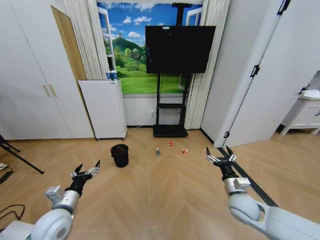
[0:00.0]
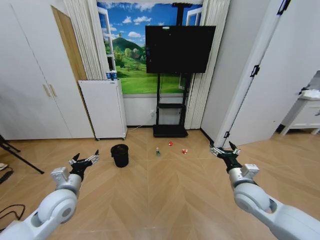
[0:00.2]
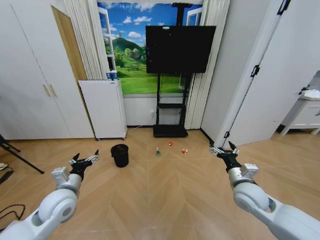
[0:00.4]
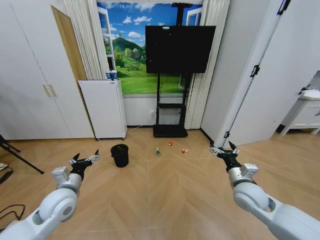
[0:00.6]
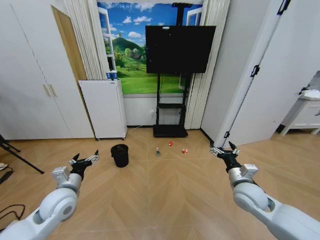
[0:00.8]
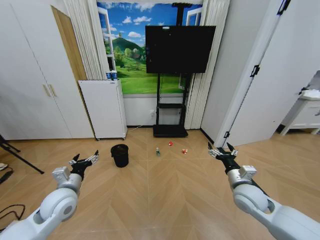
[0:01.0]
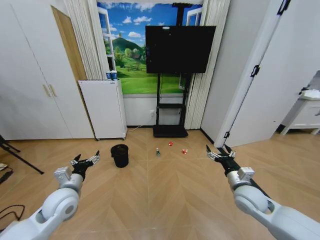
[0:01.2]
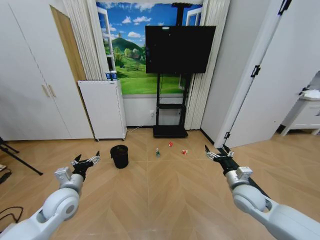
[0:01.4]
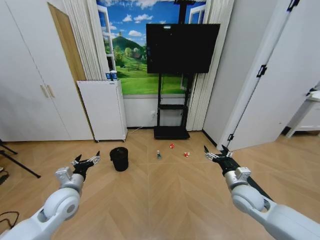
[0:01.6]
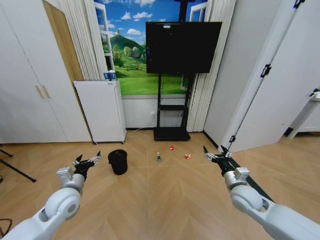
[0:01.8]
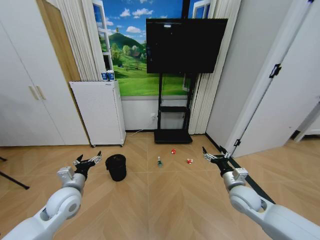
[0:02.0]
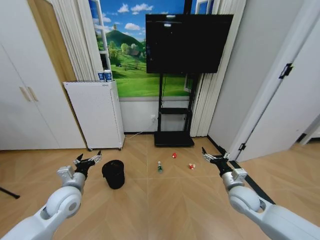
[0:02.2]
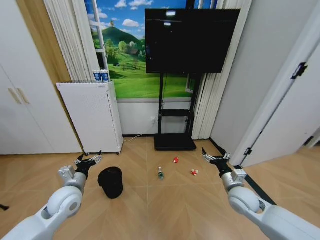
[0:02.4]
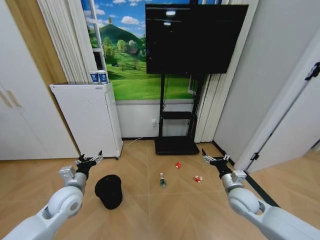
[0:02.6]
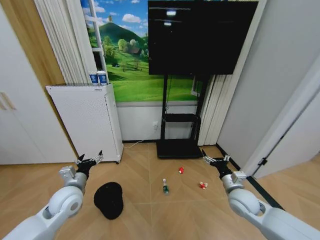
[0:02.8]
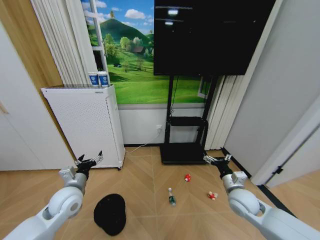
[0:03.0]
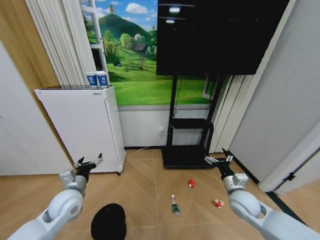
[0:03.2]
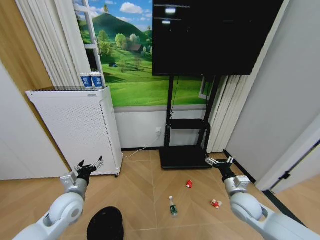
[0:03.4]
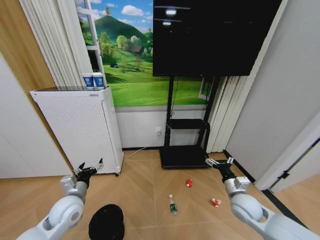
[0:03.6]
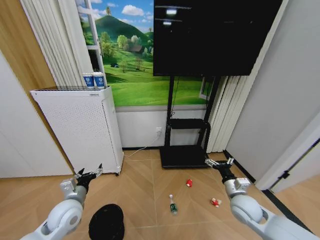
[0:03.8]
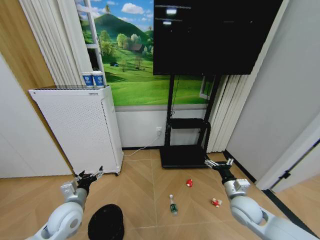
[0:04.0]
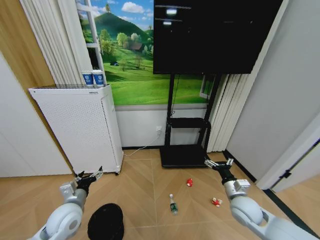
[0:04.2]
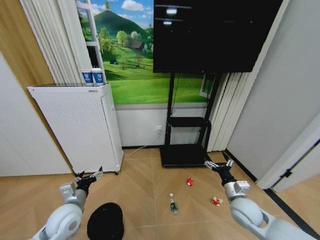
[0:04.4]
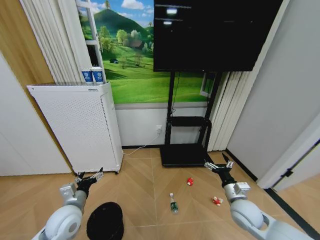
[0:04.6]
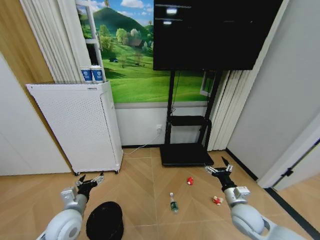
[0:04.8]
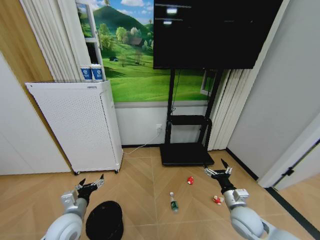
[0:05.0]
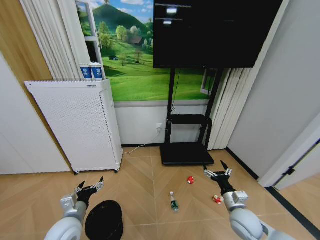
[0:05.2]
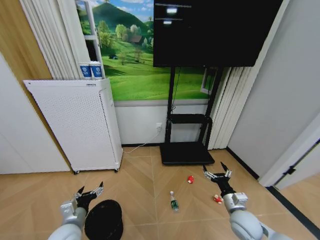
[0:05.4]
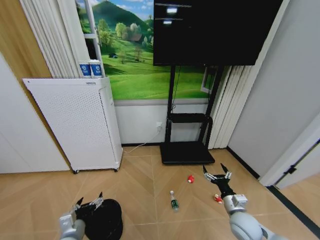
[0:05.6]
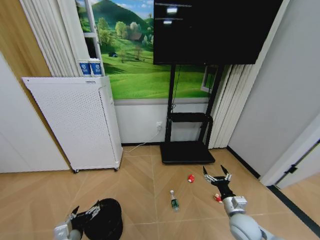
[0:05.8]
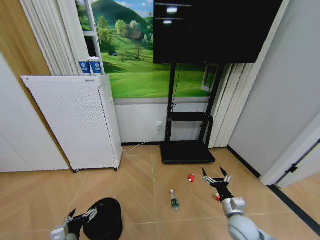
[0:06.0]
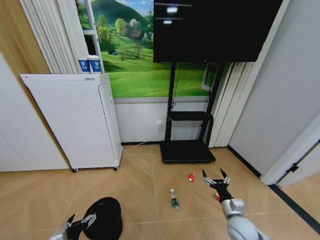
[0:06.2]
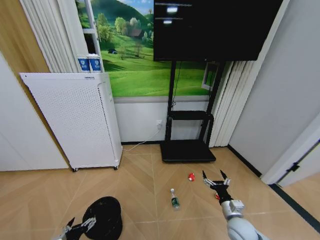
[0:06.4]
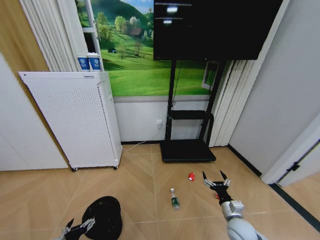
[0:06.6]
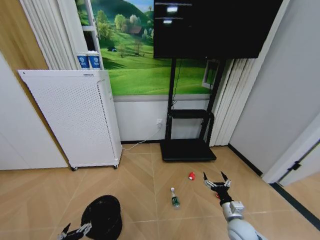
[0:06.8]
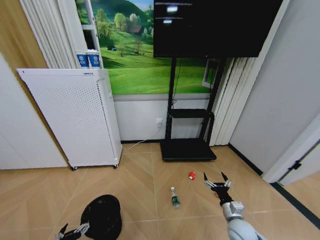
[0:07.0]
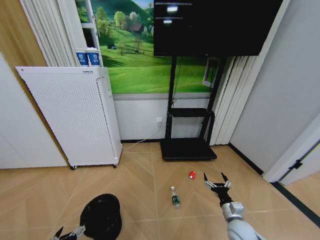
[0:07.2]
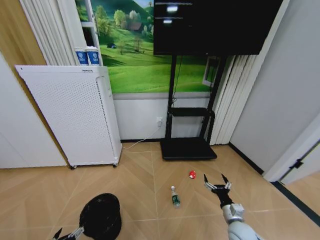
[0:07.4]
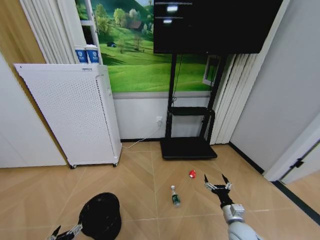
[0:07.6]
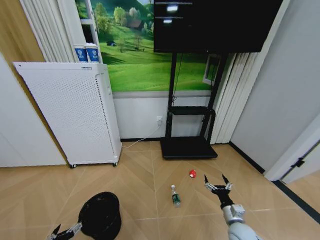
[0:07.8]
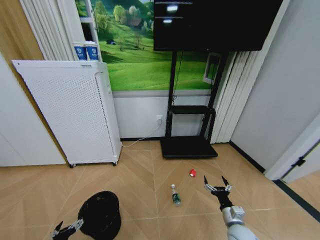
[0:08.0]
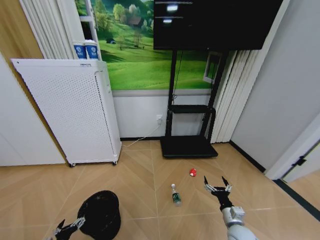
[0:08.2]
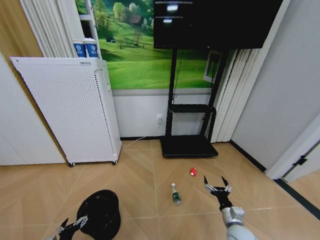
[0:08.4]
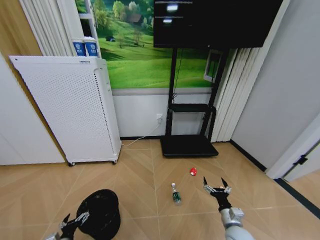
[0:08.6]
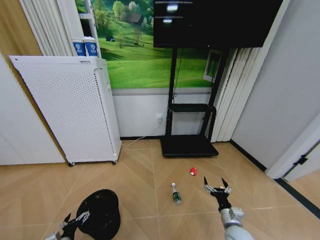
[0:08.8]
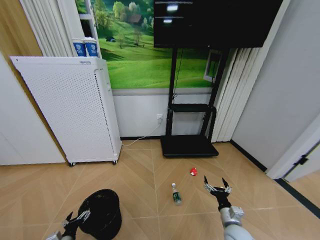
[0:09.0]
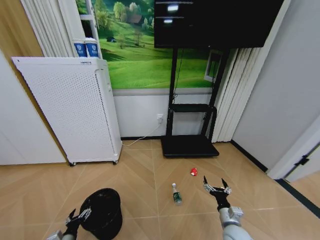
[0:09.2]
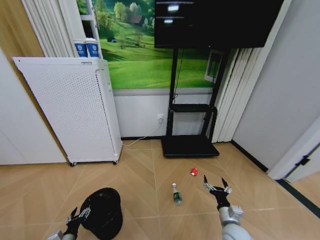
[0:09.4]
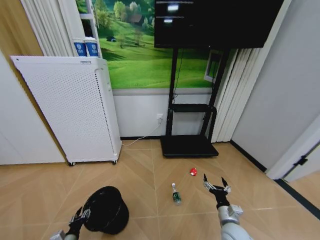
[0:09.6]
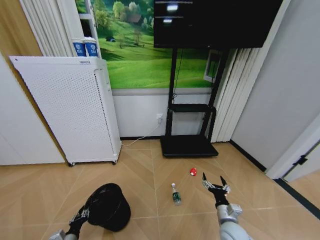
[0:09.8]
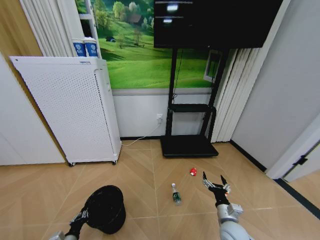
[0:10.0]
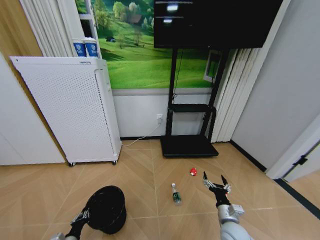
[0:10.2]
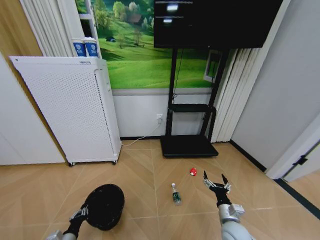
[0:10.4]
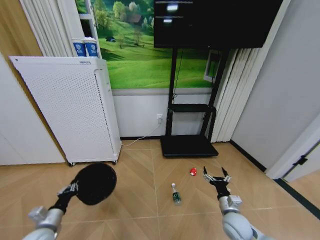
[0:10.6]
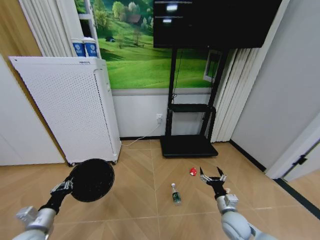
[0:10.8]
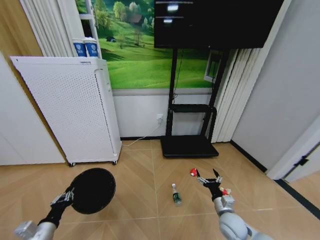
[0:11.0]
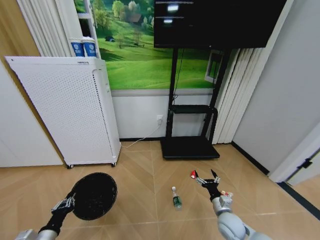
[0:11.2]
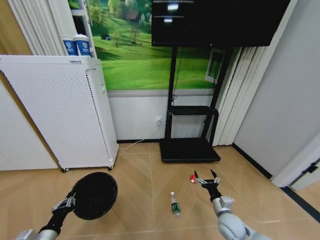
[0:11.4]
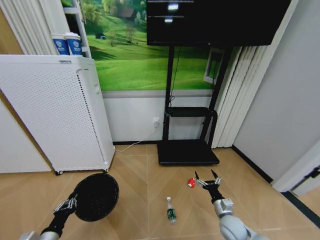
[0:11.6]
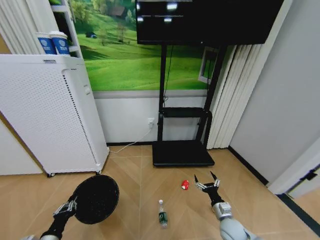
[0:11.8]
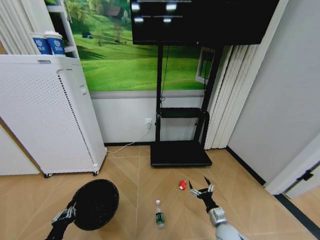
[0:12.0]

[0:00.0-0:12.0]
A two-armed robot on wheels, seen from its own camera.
Task of the whole recording: Pick up the trash bin and place the garbage on the floor into it.
0:03.0 to 0:04.4: The left gripper changes place by roughly 5 cm.
0:04.4 to 0:06.0: The right gripper is displaced downward by about 5 cm, while the left gripper goes about 15 cm backward and downward.
0:06.0 to 0:07.6: The left gripper travels downward and to the left by approximately 10 cm.
0:07.6 to 0:09.0: The left gripper shifts approximately 5 cm forward.
0:09.0 to 0:10.4: The left gripper closes up.
0:10.4 to 0:12.0: The right gripper heads downward, covering some 5 cm. Meanwhile the left gripper is displaced upward by some 10 cm.

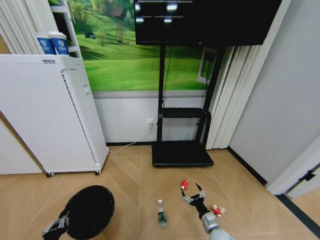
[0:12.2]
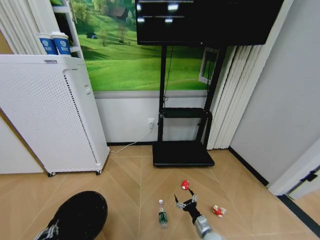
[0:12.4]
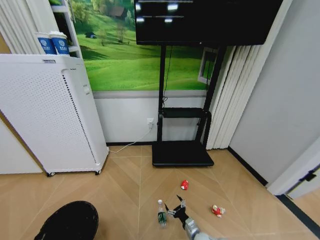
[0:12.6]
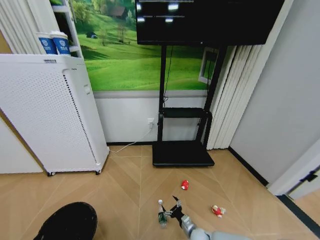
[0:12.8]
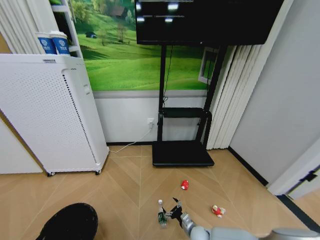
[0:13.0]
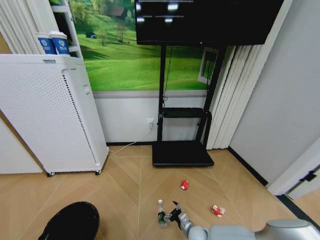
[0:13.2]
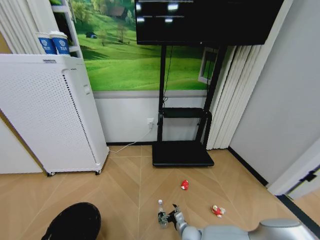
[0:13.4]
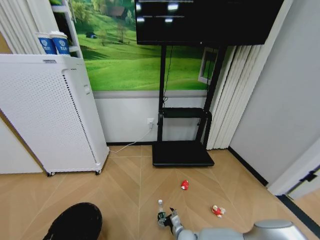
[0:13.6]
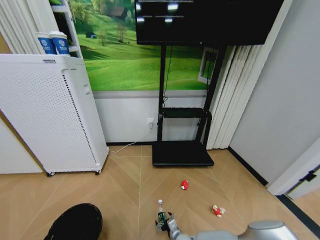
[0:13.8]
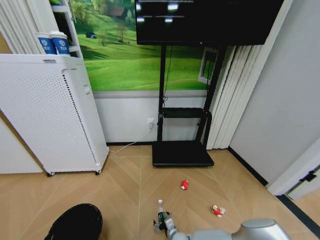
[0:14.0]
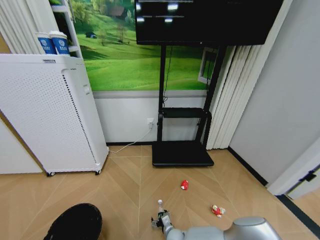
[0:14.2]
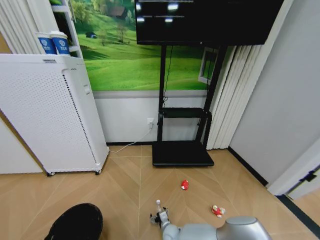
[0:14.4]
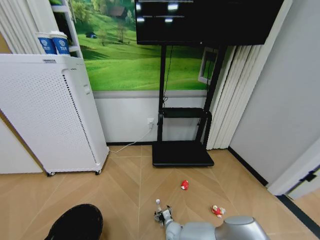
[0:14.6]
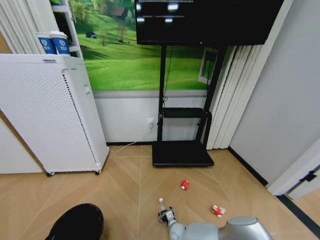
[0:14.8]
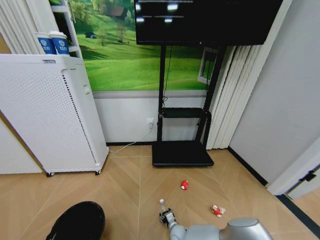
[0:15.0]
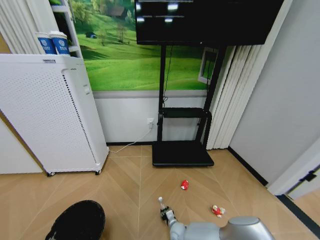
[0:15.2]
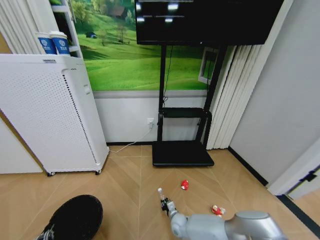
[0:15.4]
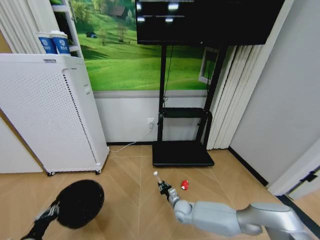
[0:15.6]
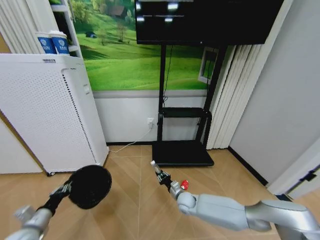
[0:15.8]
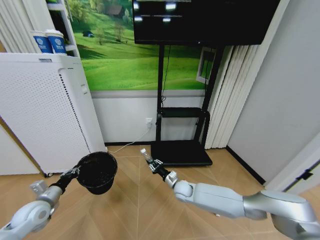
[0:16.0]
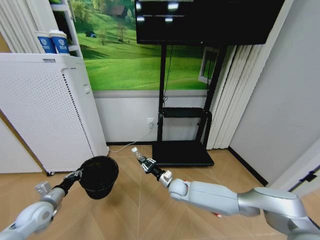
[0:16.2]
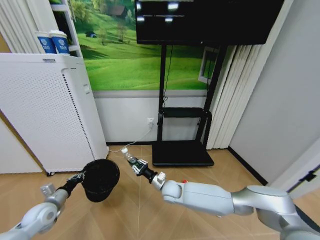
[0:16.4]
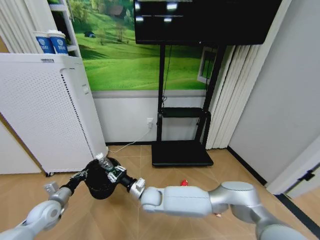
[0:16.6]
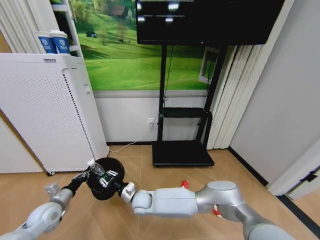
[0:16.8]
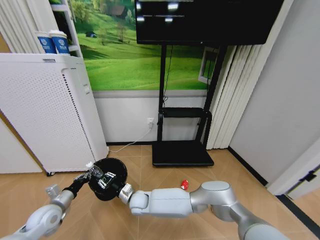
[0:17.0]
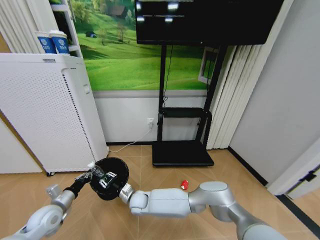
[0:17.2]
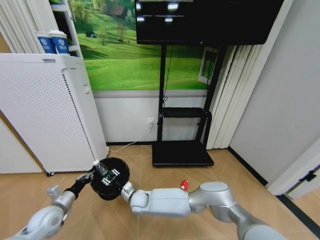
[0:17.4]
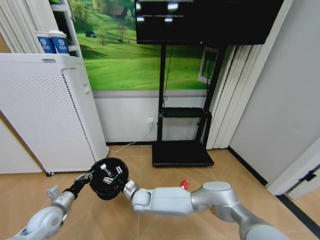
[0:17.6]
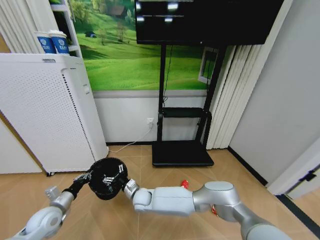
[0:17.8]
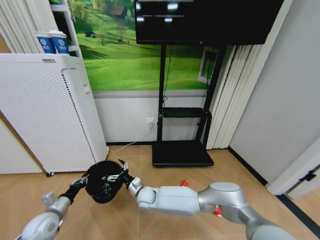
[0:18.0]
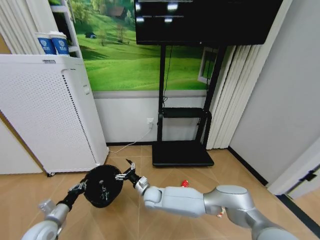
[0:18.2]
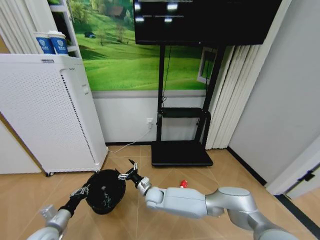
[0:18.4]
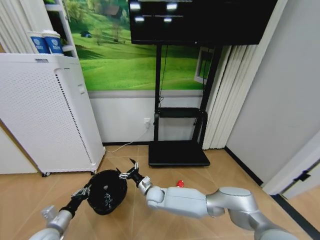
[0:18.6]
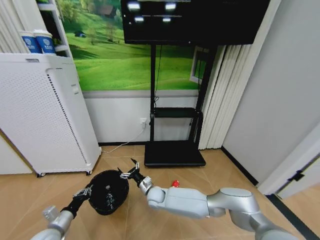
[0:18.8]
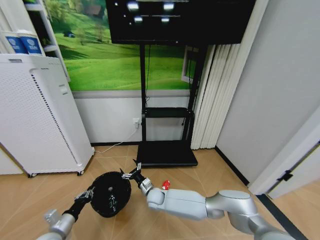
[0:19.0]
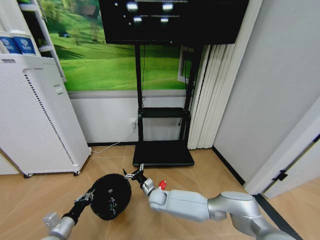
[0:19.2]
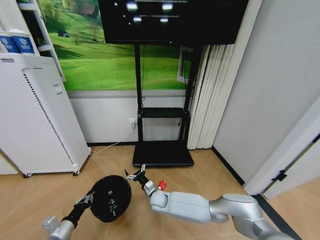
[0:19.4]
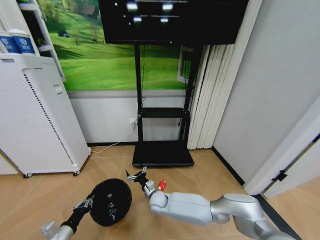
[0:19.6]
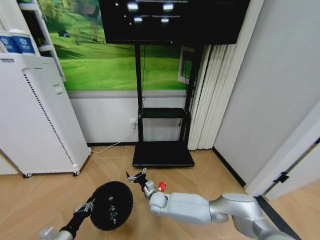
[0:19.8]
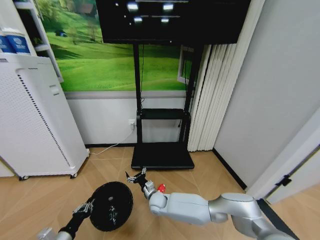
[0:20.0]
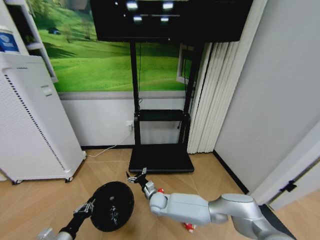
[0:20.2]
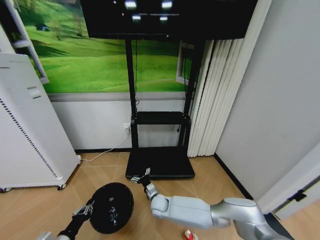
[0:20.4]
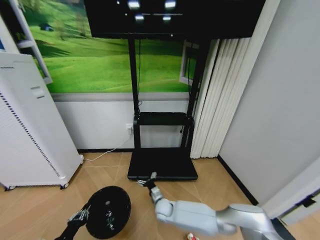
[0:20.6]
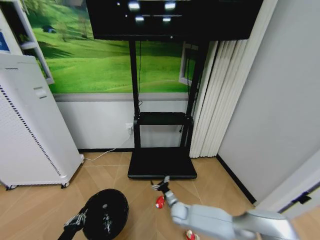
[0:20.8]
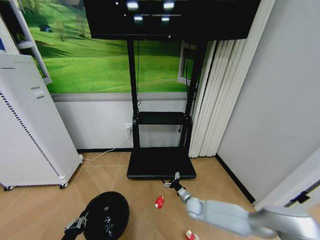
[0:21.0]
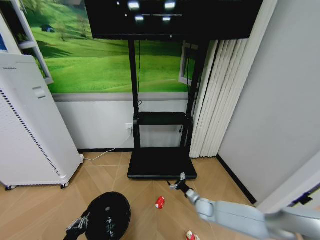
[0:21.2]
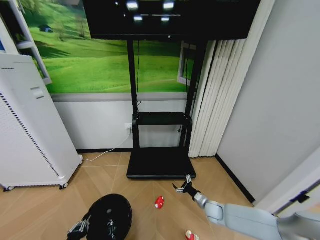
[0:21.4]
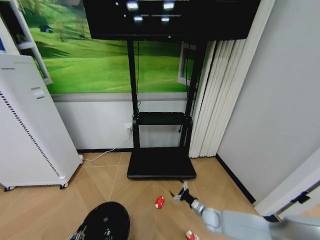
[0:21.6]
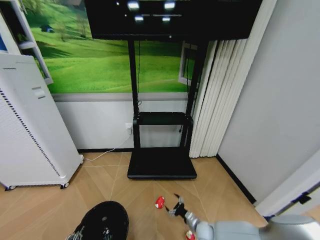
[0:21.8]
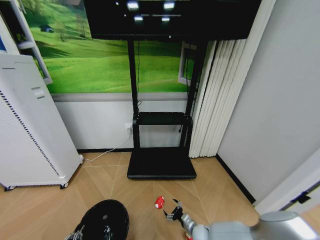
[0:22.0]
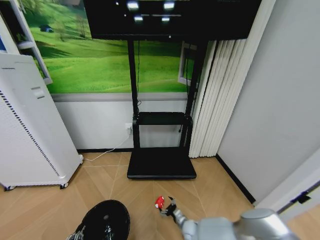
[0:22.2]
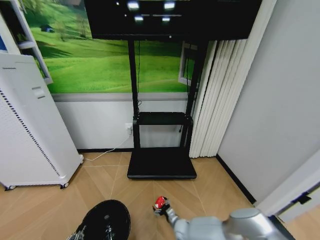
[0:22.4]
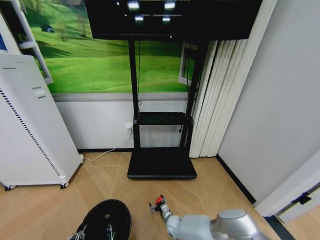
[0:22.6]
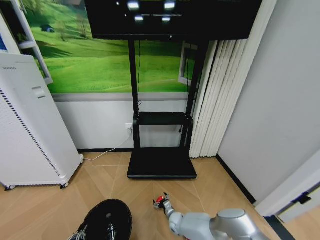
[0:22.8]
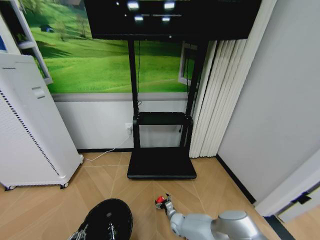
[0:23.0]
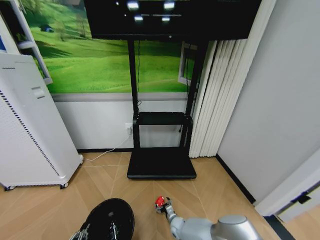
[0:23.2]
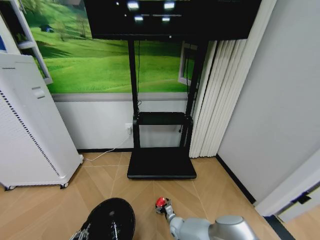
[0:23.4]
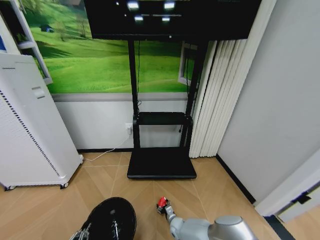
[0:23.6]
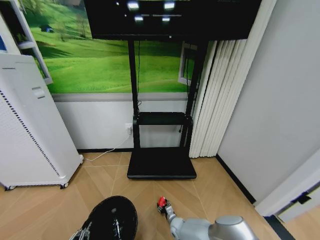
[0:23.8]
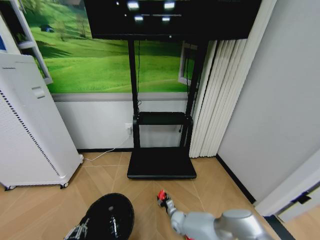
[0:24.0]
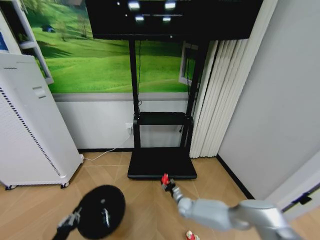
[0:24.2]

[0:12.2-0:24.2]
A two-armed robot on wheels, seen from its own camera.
Task of the whole recording: Pick up the trash bin and place the garbage on the floor into it.
0:12.2 to 0:13.8: The left gripper travels downward and backward by some 10 cm, while the right gripper travels to the left and downward by approximately 15 cm.
0:13.8 to 0:15.2: The right gripper travels forward and downward by approximately 10 cm, and closes.
0:15.2 to 0:16.6: The right gripper shifts roughly 30 cm upward and to the left, and closes its fingers; the left gripper is displaced forward by about 25 cm.
0:16.6 to 0:18.2: The right gripper ends up about 5 cm from where it was, and opens.
0:18.2 to 0:19.8: The right gripper travels to the right by about 5 cm; the left gripper goes some 10 cm backward.
0:19.8 to 0:21.2: The left gripper shifts roughly 5 cm backward, while the right gripper is displaced to the right by about 25 cm.
0:21.2 to 0:22.6: The right gripper heads to the left and downward, covering about 20 cm. The left gripper is displaced backward by approximately 5 cm.
0:22.6 to 0:24.2: The right gripper heads to the right and forward, covering about 10 cm, and closes, while the left gripper ends up approximately 5 cm from where it was.
